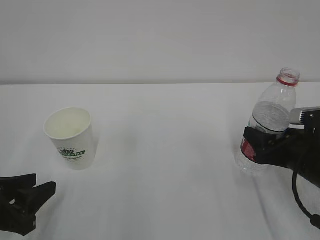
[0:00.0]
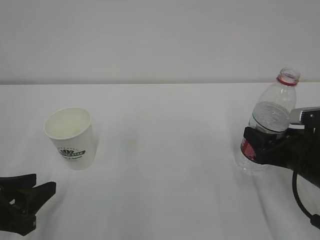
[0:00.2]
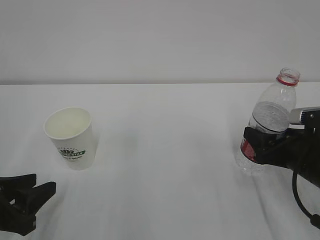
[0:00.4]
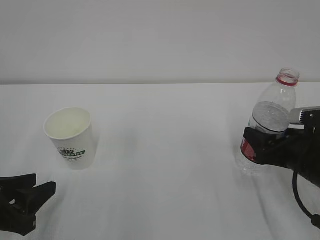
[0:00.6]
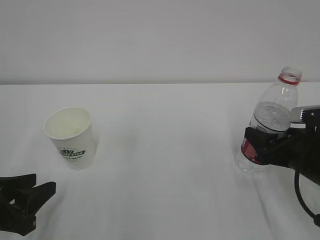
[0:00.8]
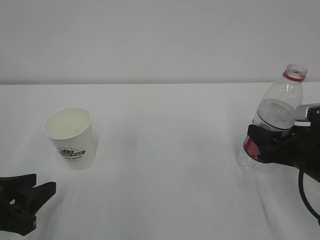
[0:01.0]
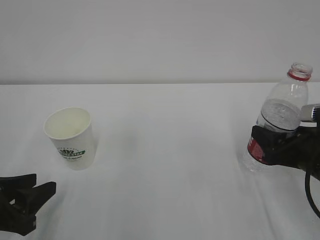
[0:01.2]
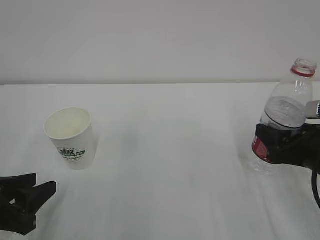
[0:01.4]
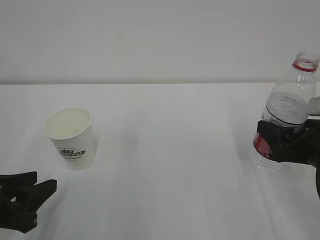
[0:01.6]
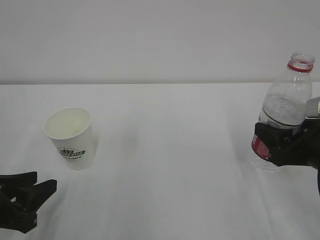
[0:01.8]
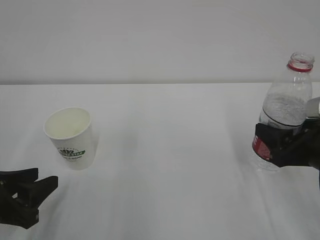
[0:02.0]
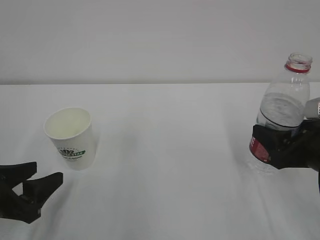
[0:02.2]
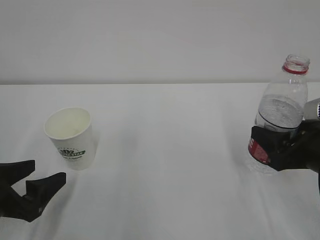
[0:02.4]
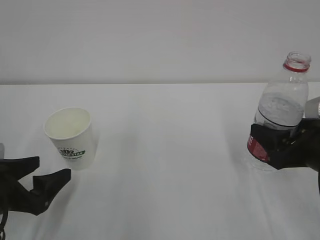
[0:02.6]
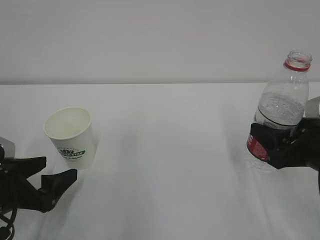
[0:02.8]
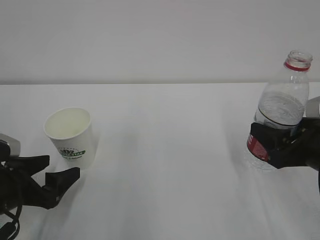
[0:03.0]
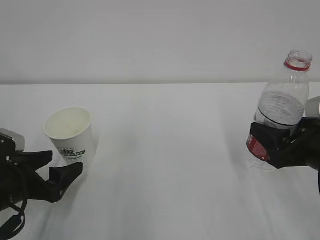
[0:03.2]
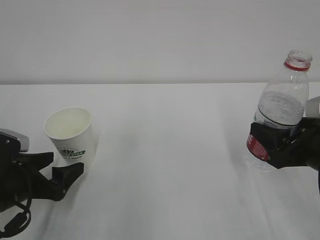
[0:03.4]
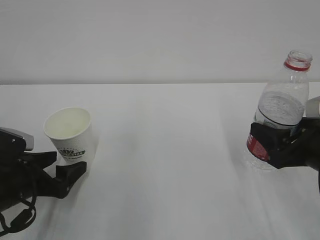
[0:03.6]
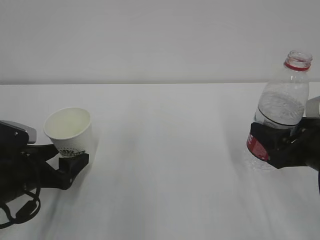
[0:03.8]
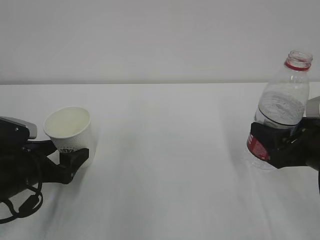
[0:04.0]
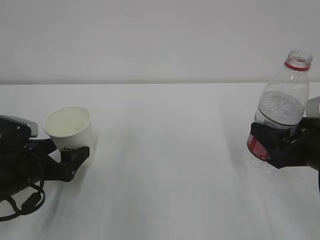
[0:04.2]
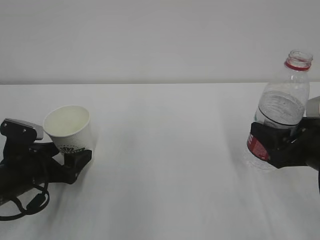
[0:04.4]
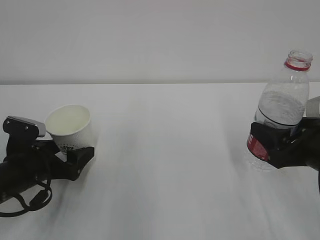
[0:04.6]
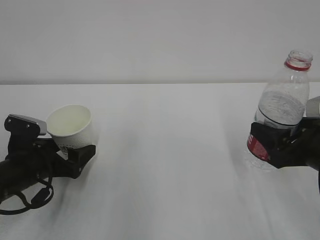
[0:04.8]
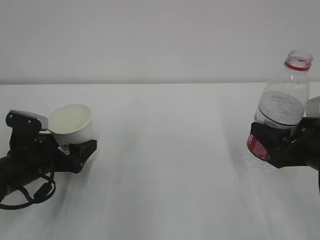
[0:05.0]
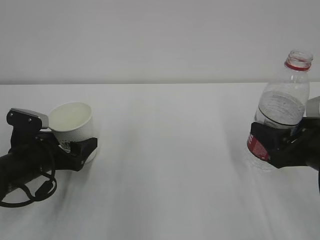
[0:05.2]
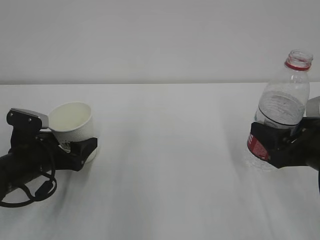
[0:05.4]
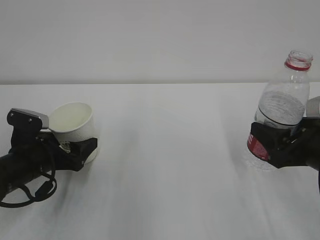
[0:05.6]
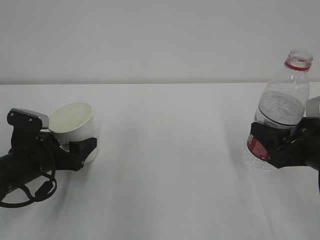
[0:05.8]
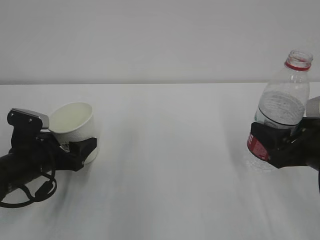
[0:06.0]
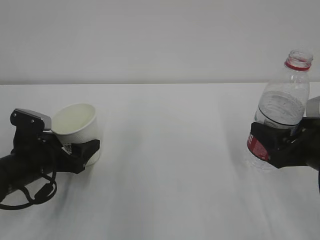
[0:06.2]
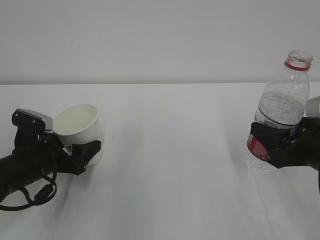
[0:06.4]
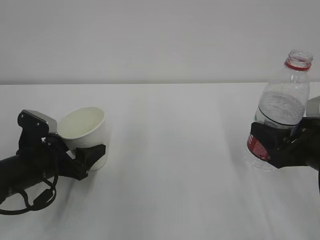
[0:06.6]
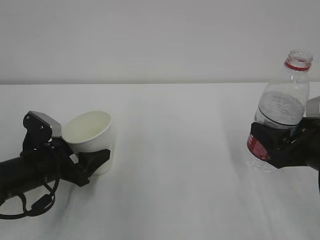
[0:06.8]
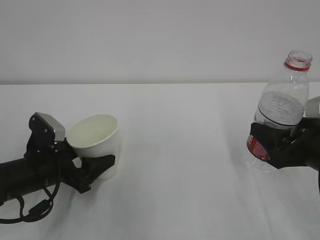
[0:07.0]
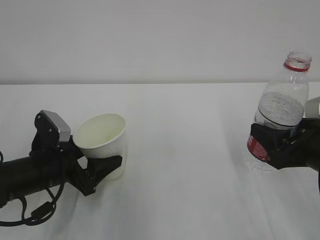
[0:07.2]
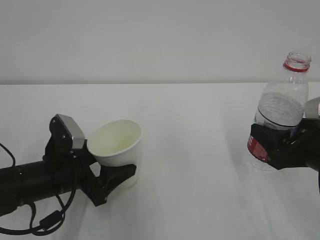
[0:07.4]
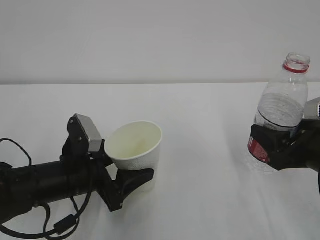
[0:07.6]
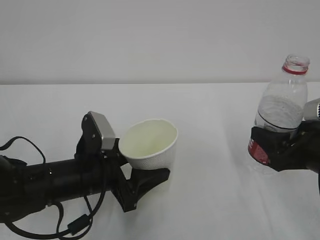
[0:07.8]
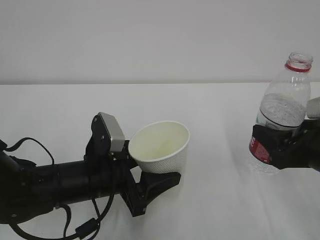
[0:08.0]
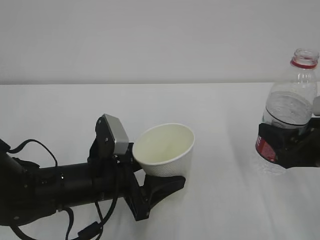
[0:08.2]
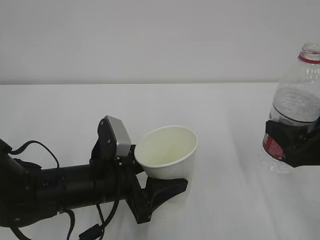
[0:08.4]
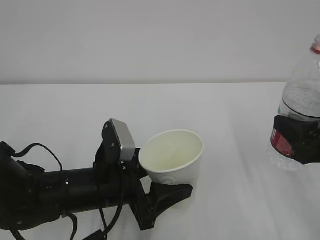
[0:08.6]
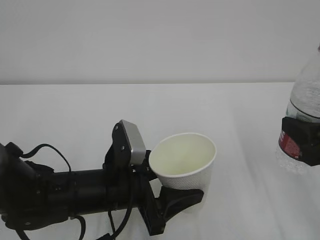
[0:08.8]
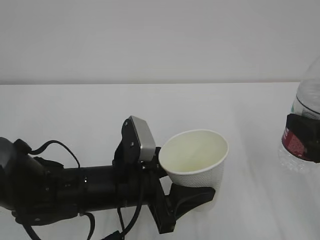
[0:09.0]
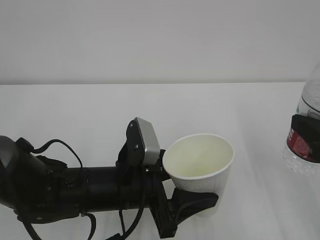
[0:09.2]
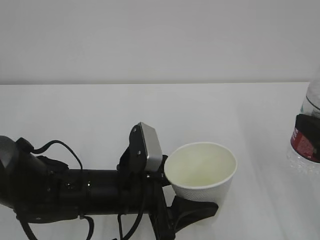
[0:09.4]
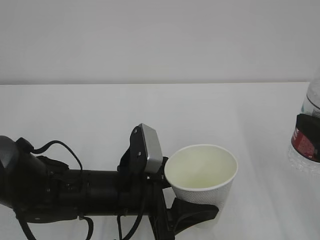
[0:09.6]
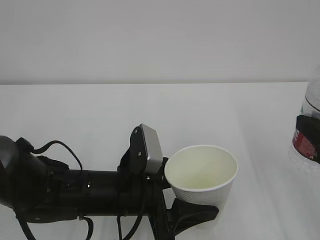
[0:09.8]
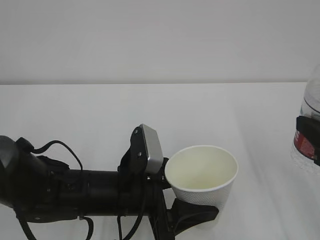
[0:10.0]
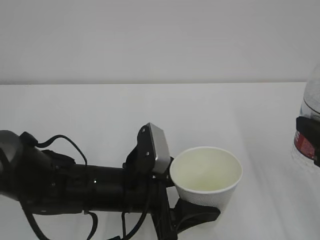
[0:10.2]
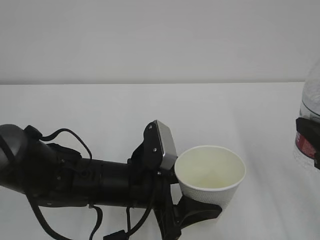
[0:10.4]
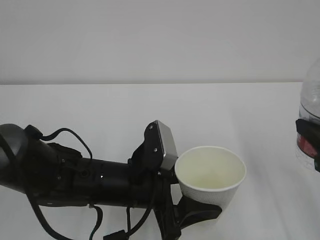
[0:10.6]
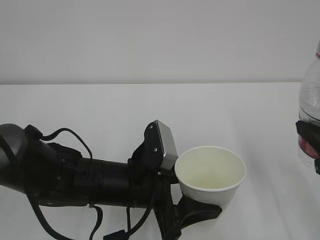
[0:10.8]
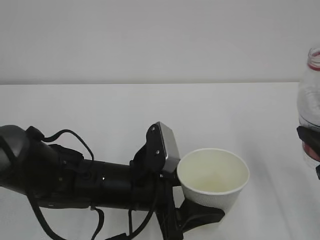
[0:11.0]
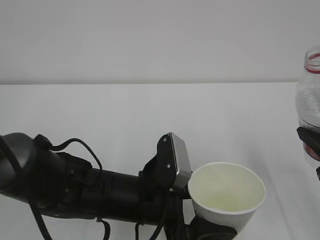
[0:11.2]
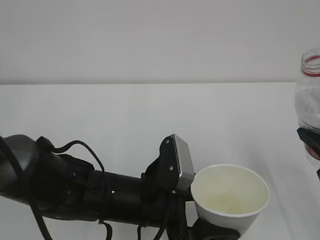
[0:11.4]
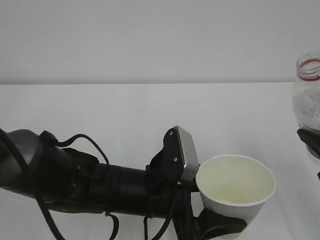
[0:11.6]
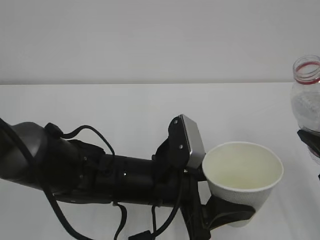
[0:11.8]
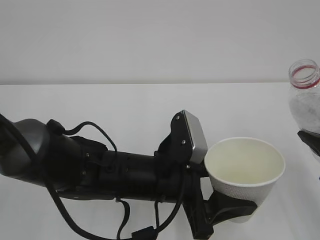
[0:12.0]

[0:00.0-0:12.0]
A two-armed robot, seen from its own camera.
0:00.0 to 0:01.6: The right gripper shifts by approximately 5 cm.
0:01.6 to 0:03.0: The left gripper opens its fingers.
0:03.0 to 0:04.4: The left gripper is displaced forward by roughly 5 cm.
0:04.4 to 0:06.0: The grippers stay close to where they were, moving slightly.
0:06.0 to 0:07.6: The left gripper shifts roughly 10 cm to the right.
0:07.6 to 0:09.0: The right gripper moves upward, some 5 cm, while the left gripper is displaced to the right by roughly 10 cm.
0:09.0 to 0:10.4: The grippers move only a little.

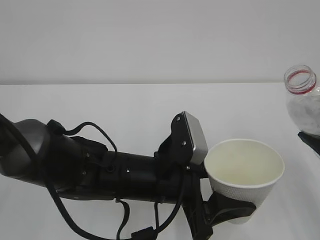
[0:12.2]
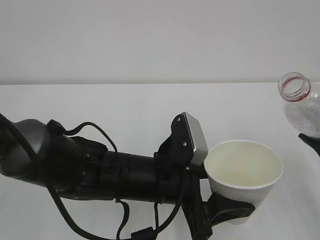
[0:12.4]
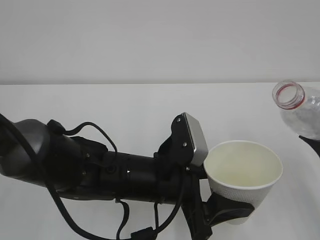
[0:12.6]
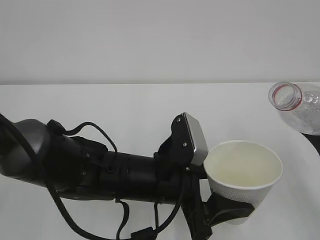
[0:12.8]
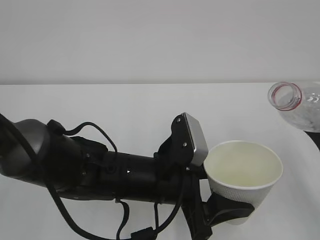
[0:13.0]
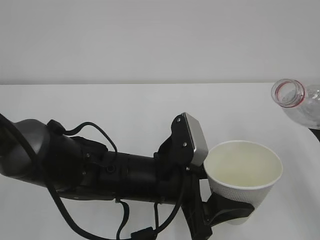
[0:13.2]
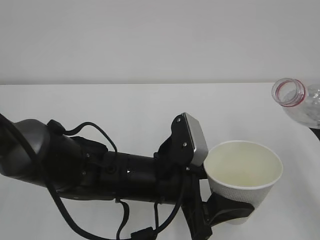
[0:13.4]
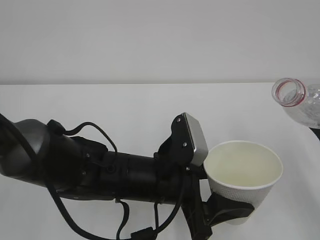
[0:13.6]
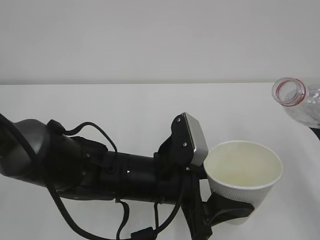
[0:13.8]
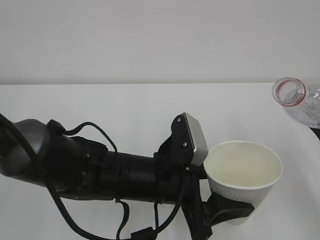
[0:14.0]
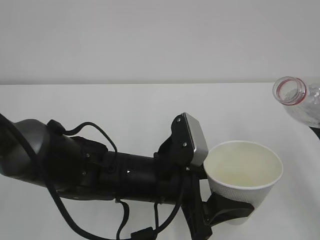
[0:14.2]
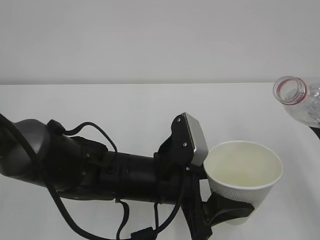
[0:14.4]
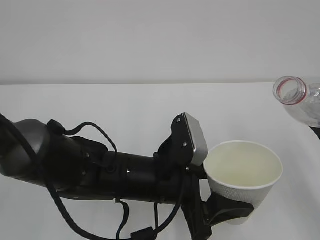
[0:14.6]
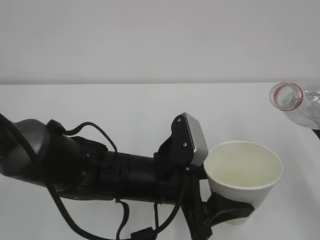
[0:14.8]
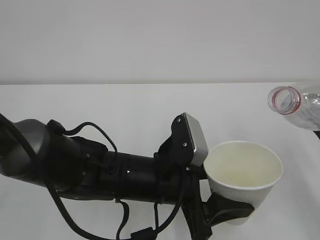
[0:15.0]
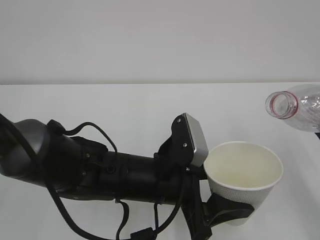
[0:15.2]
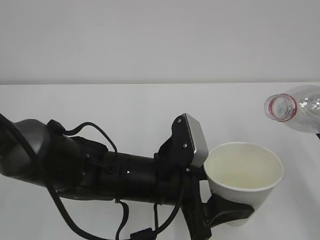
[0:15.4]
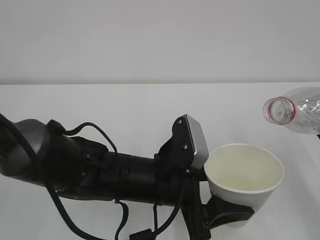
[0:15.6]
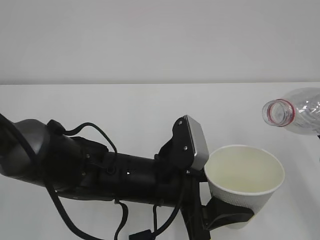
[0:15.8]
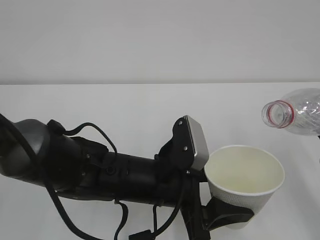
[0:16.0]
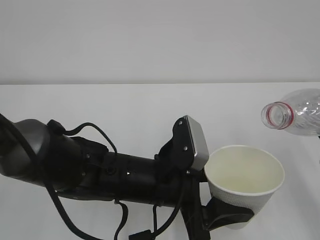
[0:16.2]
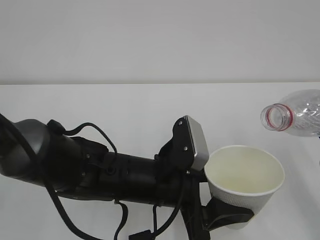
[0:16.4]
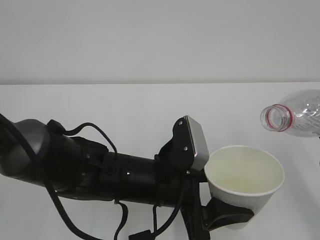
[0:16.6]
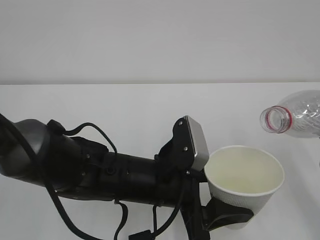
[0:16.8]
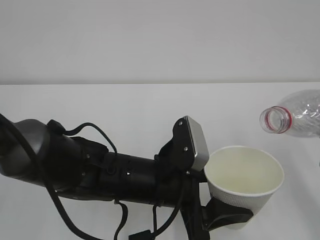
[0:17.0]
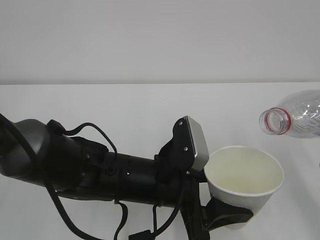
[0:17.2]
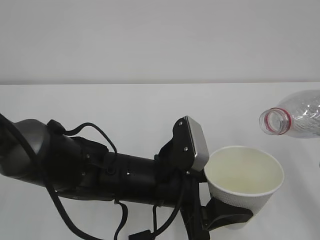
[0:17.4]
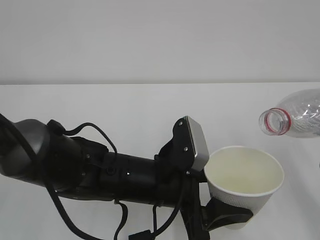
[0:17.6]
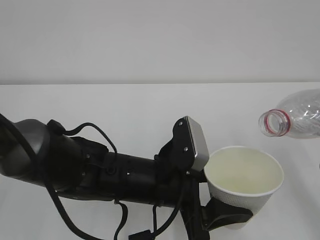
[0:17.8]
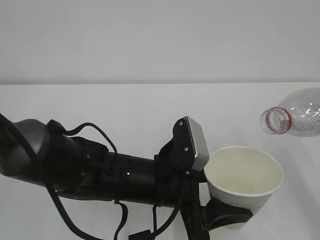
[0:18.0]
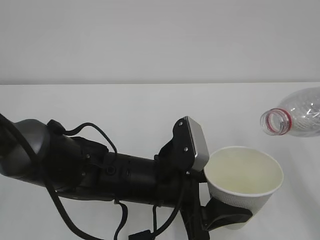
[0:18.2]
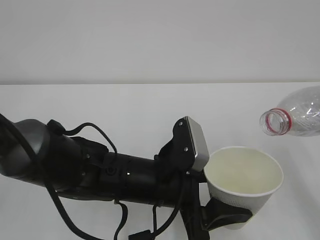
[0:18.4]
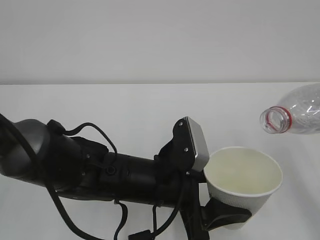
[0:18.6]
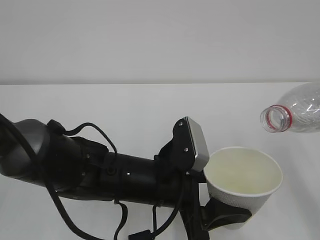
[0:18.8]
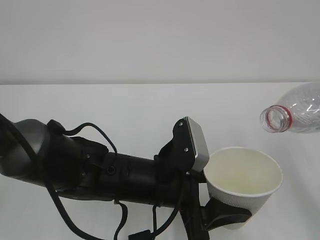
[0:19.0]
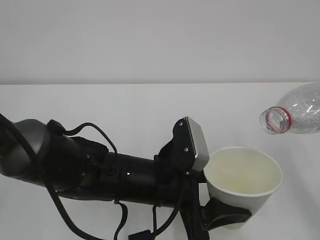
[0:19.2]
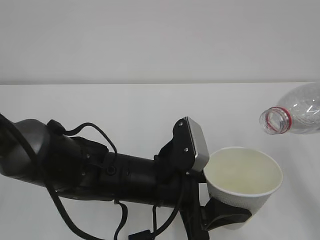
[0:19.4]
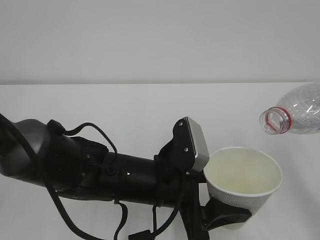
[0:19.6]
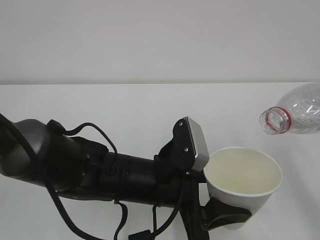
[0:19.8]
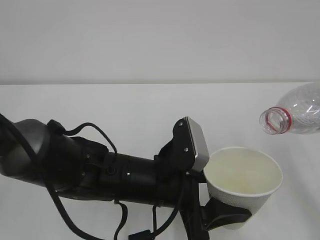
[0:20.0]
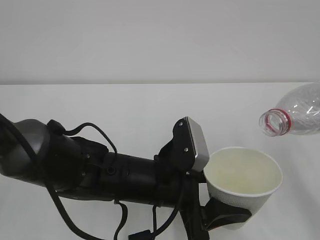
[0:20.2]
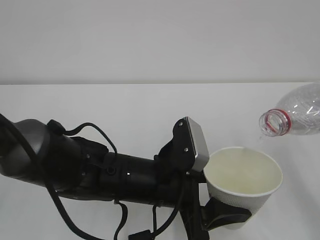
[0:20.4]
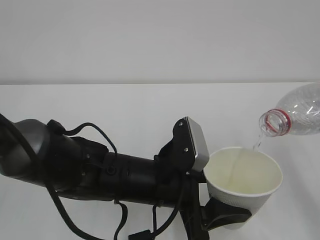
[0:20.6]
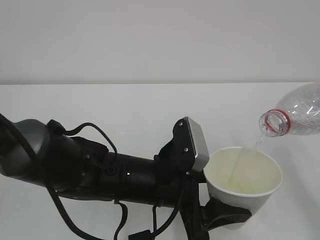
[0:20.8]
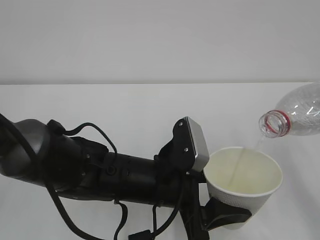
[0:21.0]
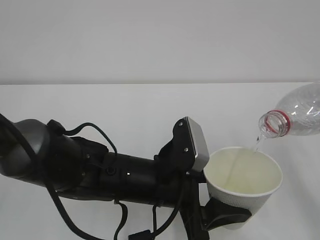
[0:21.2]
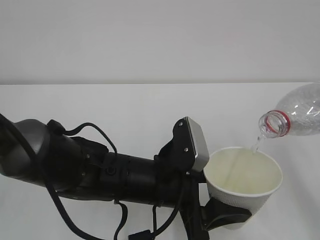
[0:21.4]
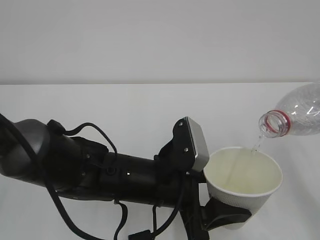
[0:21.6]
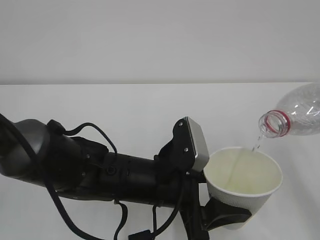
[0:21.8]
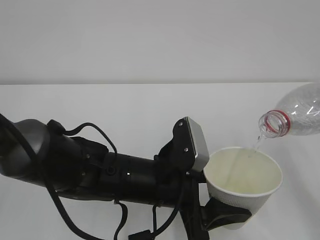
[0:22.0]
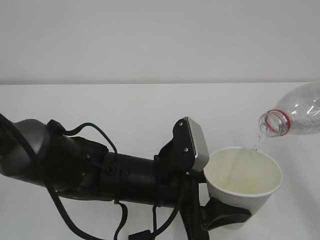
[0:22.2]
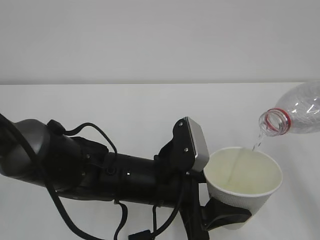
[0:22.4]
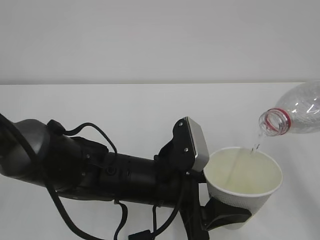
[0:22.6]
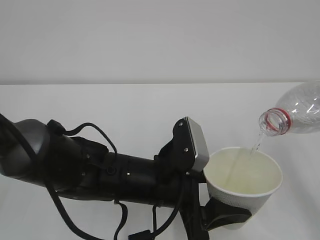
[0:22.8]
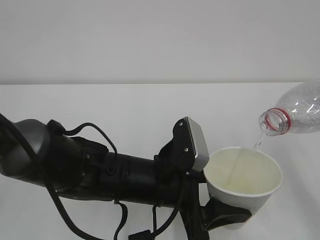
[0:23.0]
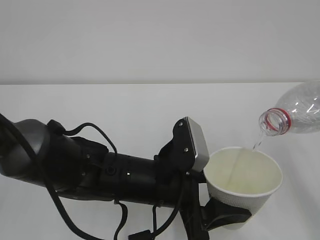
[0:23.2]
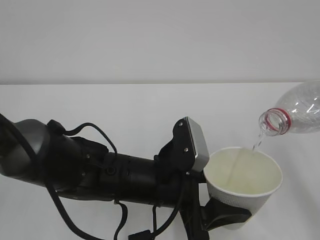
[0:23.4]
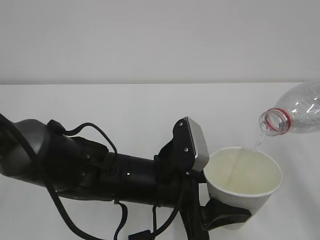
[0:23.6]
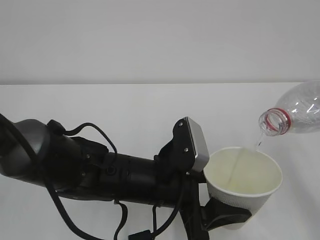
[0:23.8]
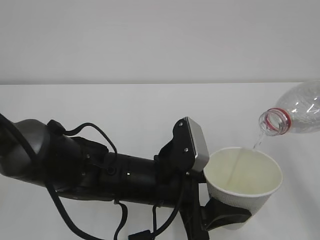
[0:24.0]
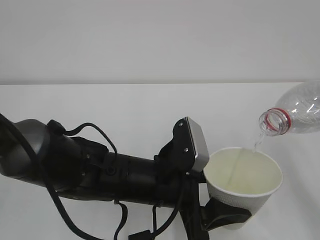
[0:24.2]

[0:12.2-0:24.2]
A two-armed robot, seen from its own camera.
0:12.2 to 0:13.8: The grippers move only a little.
0:13.8 to 0:16.6: There are only small adjustments of the grippers.
0:16.6 to 0:18.2: There are only small adjustments of the grippers.
0:18.2 to 0:19.8: The two grippers keep their place.
0:19.8 to 0:24.2: Neither gripper changes place.
